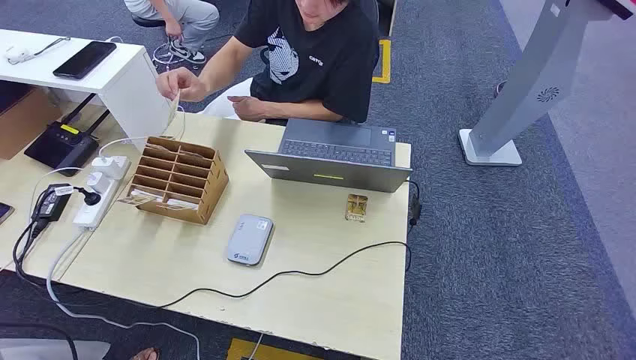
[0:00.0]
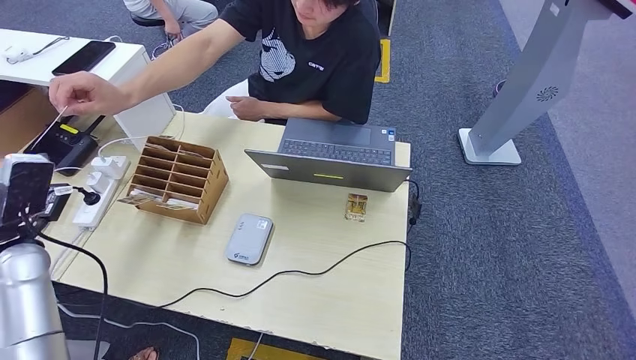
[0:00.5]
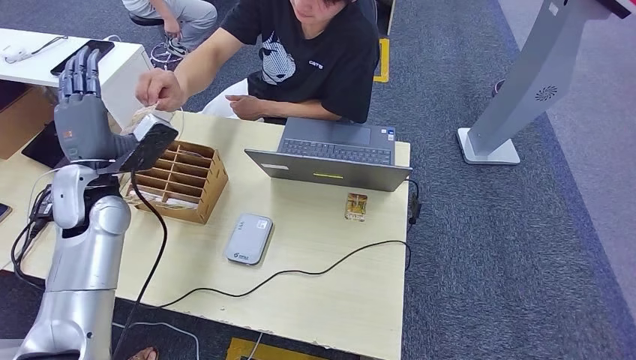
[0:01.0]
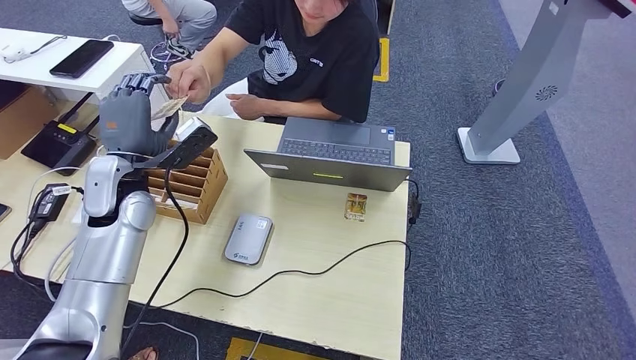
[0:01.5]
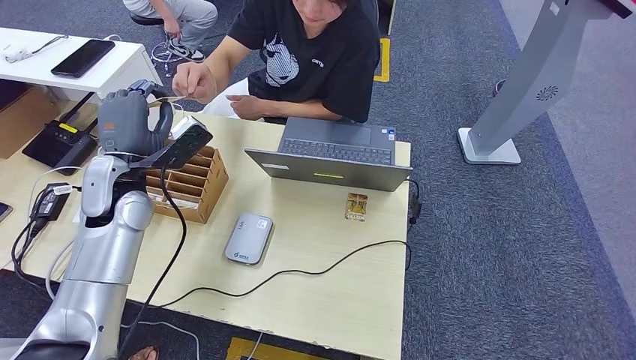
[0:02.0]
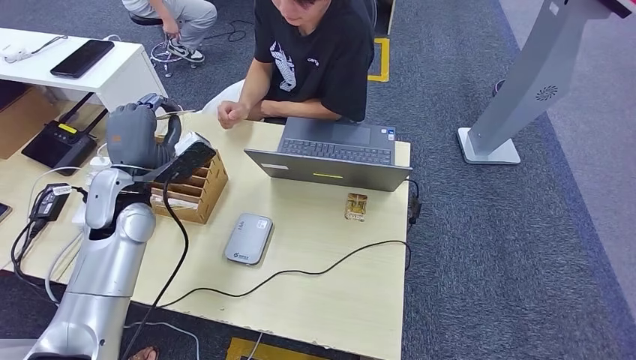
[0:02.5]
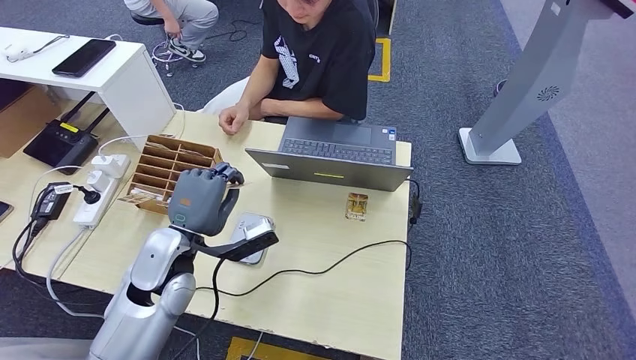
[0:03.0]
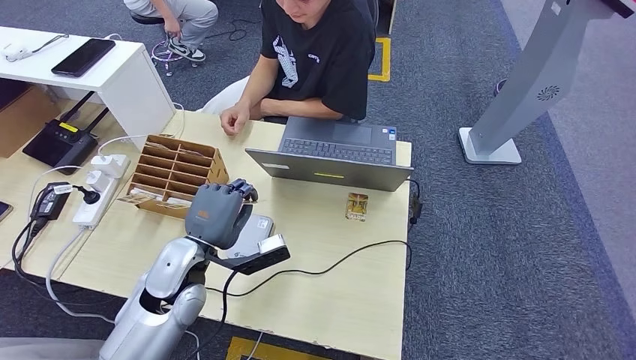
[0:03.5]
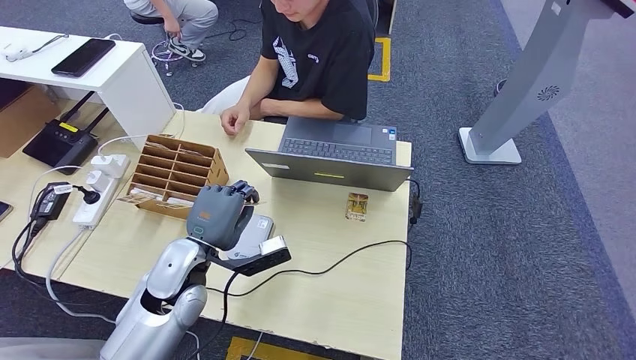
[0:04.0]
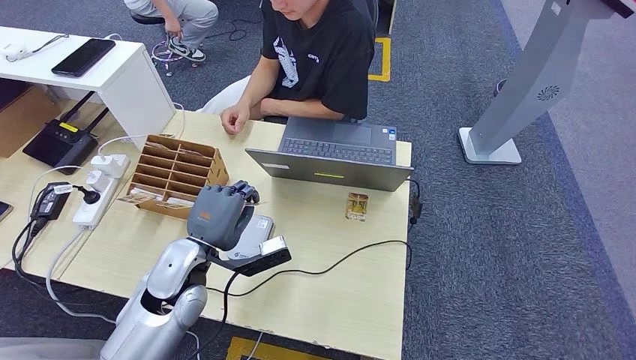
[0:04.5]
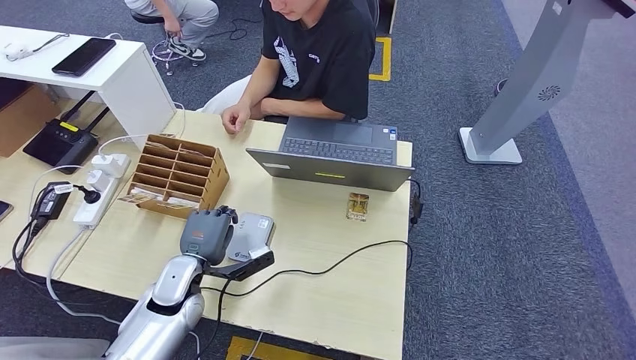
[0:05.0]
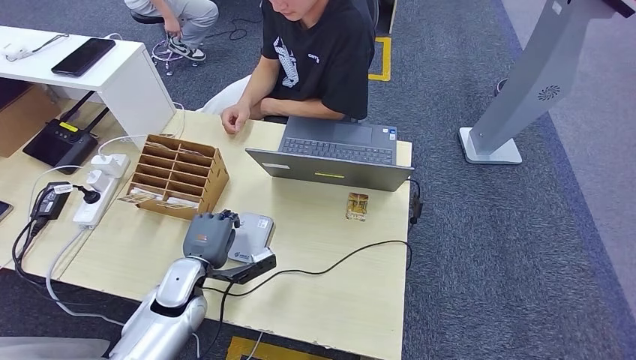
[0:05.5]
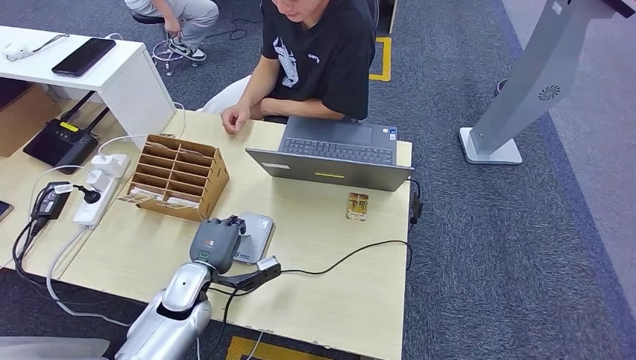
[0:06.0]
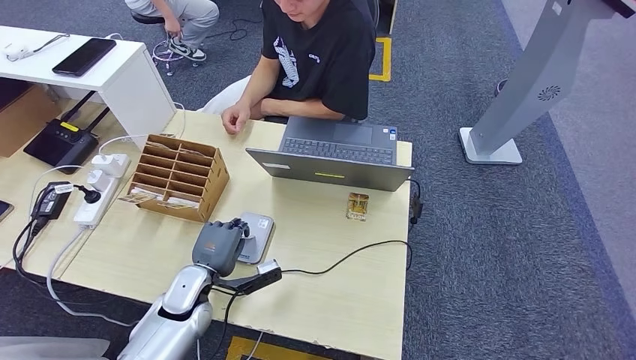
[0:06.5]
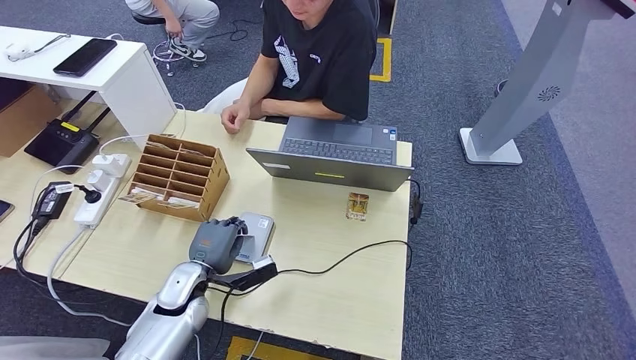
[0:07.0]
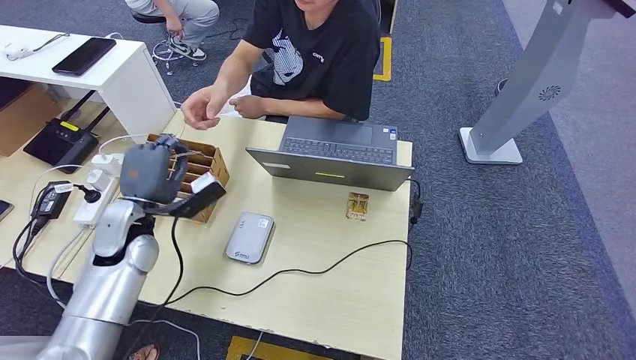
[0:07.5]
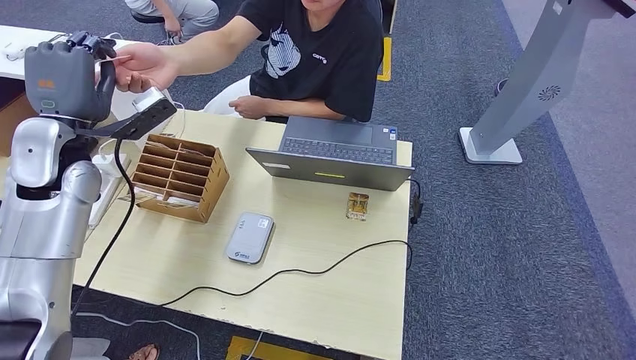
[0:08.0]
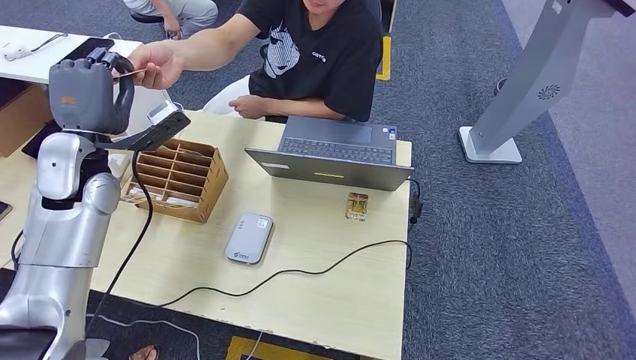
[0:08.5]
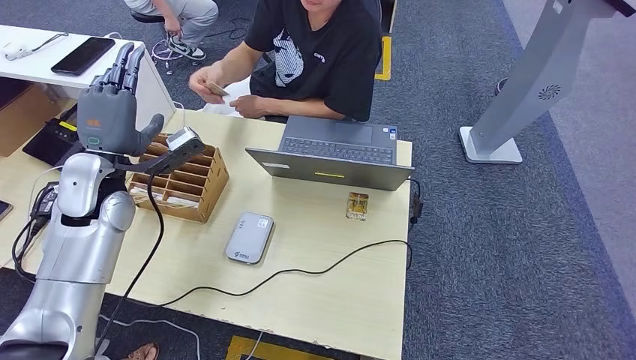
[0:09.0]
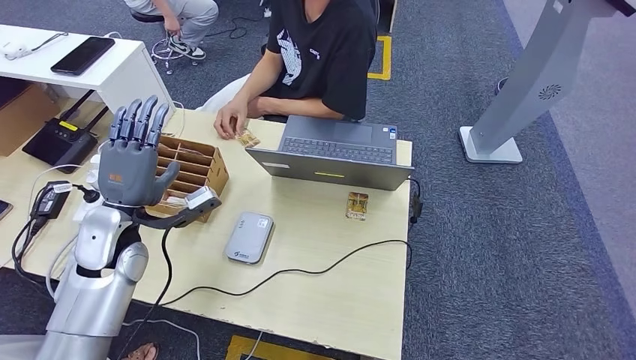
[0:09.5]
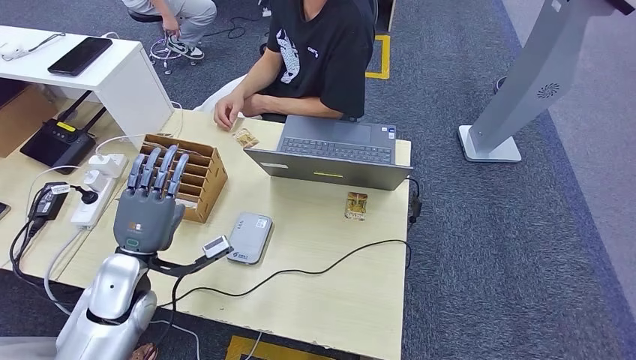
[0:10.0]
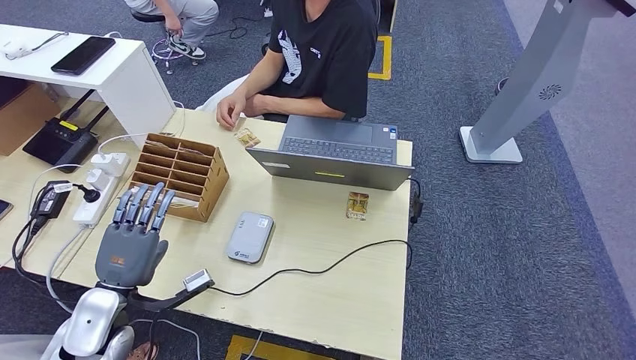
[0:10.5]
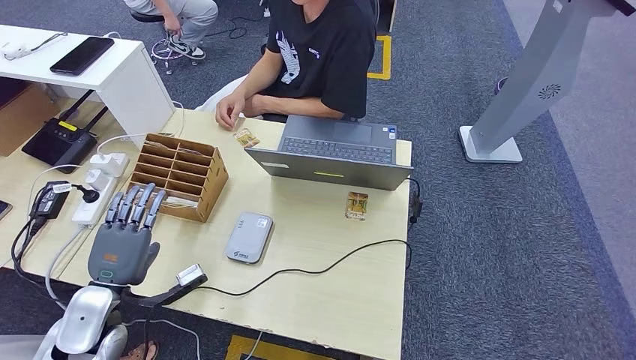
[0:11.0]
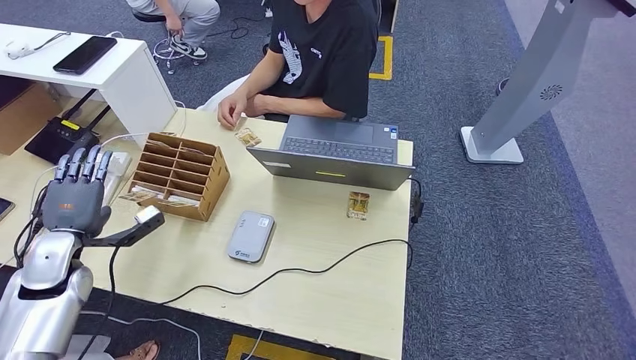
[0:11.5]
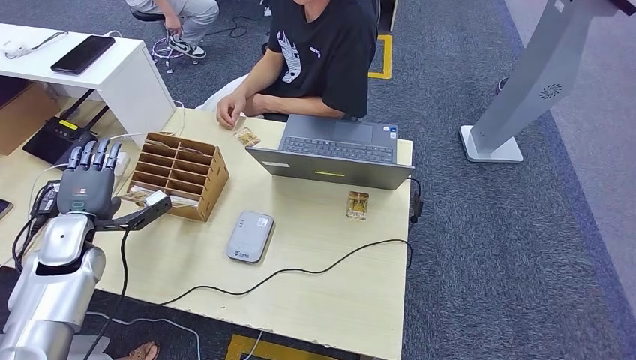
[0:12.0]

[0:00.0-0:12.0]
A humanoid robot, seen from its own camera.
Step, 0:00.0 to 0:02.5: Take the ID card from the person's hand.
Step, 0:03.5 to 0:06.0: Place the ID card on the card reader.
Step, 0:07.0 to 0:10.0: Hand the ID card to the person.
0:02.0 to 0:04.0: The left hand travels backward, downward and to the right by roughly 15 cm.
0:04.0 to 0:06.0: The left hand moves downward, roughly 10 cm.
0:10.0 to 0:12.0: The left hand moves to the left and forward, about 15 cm.

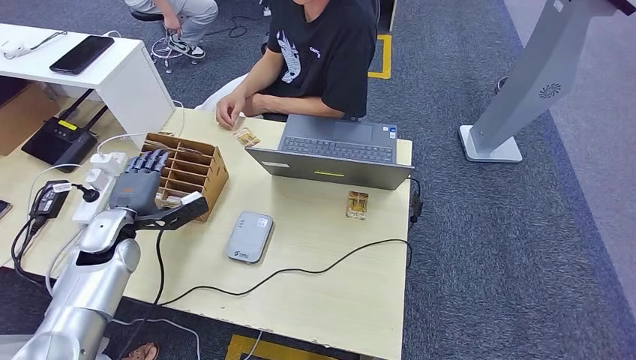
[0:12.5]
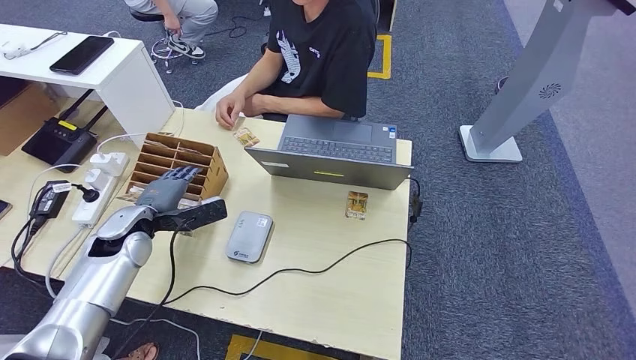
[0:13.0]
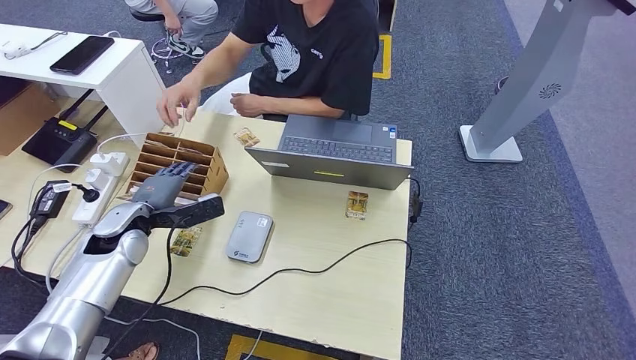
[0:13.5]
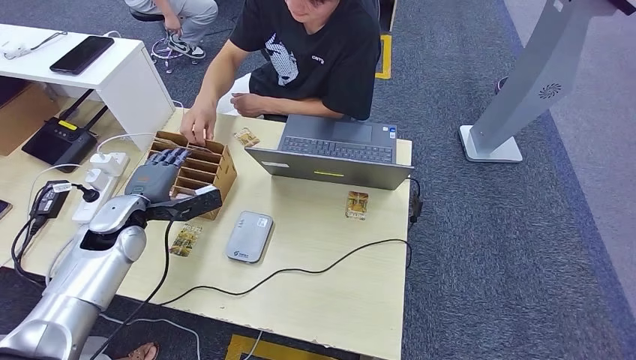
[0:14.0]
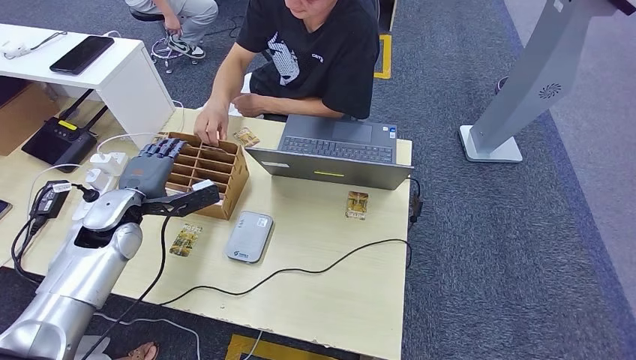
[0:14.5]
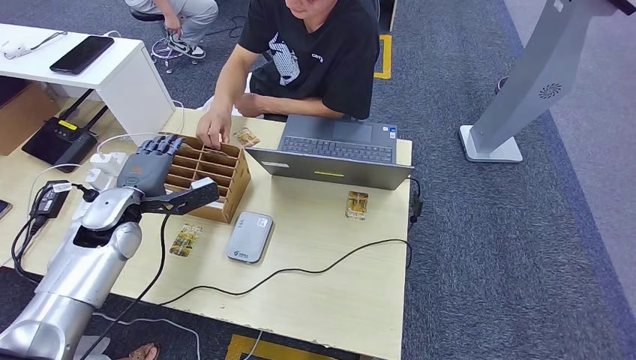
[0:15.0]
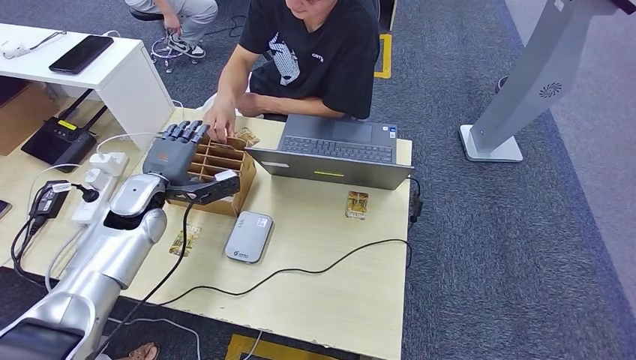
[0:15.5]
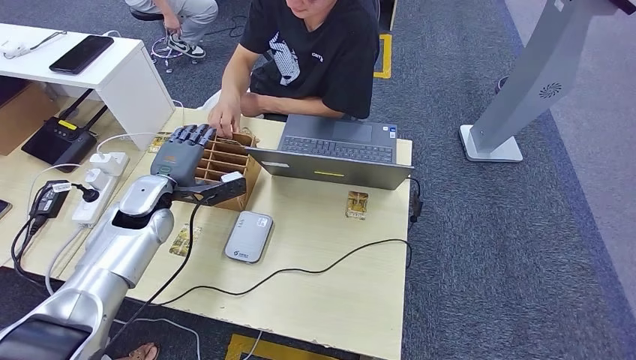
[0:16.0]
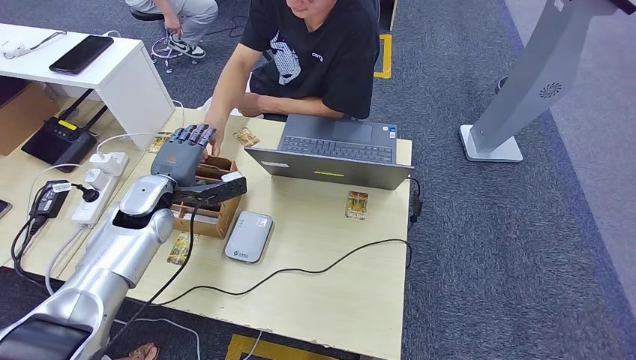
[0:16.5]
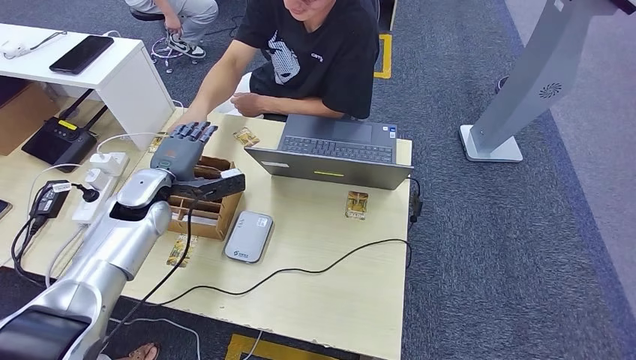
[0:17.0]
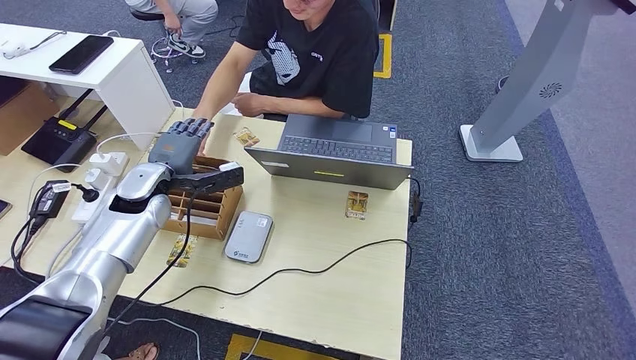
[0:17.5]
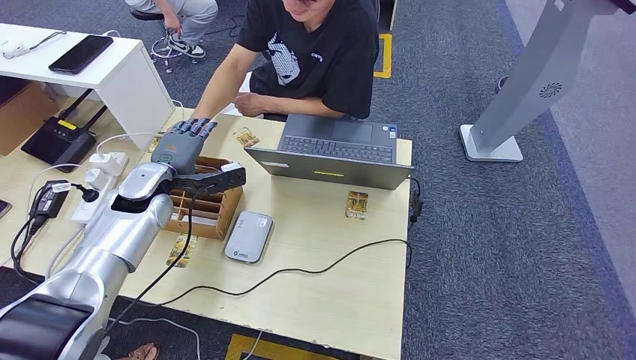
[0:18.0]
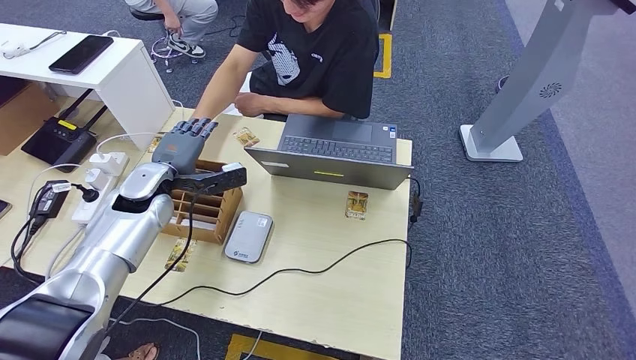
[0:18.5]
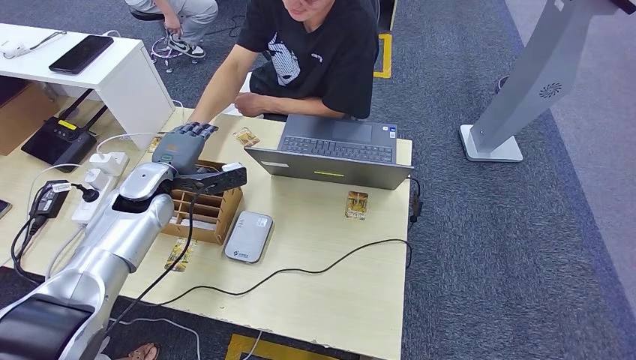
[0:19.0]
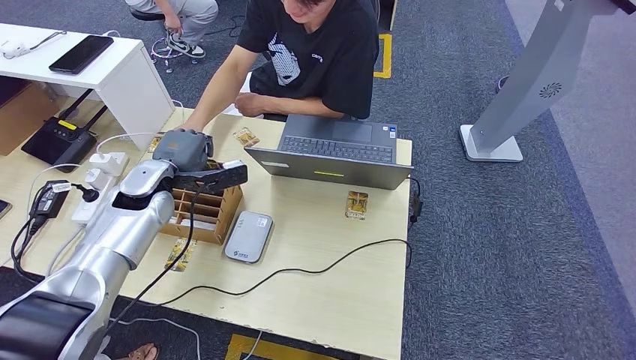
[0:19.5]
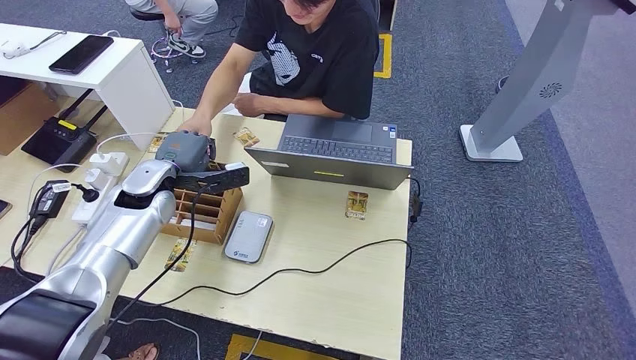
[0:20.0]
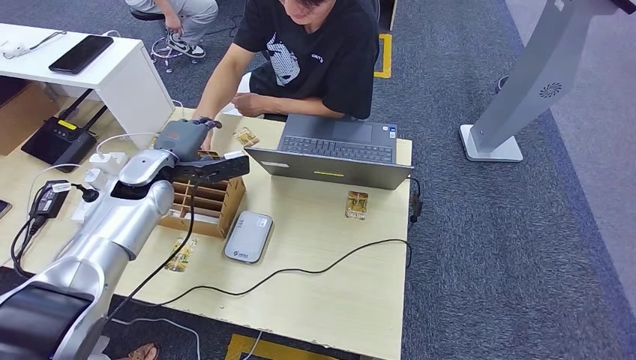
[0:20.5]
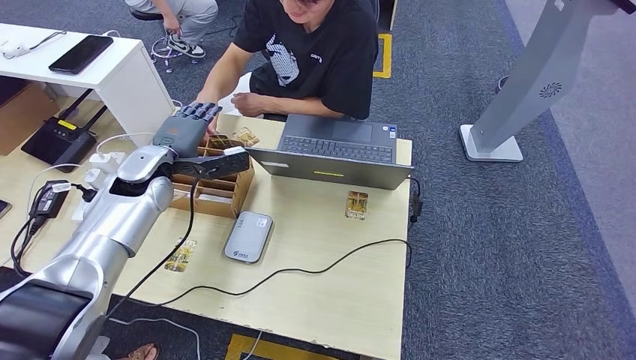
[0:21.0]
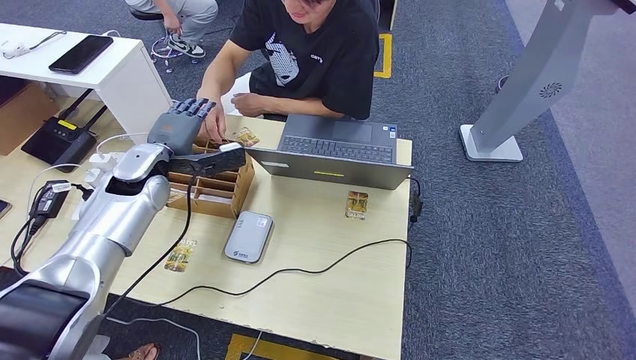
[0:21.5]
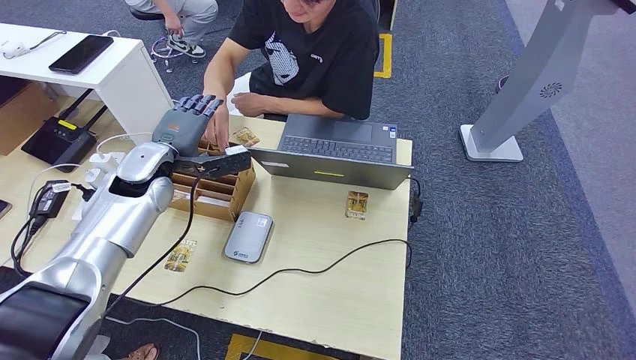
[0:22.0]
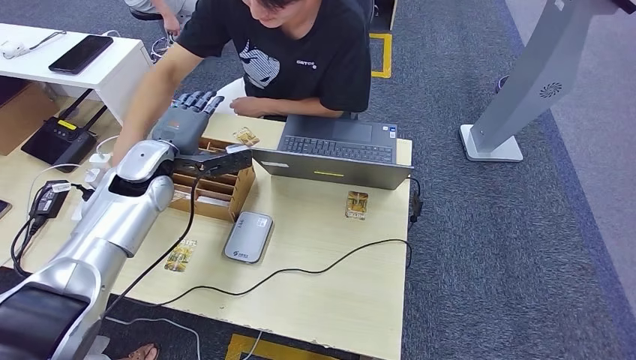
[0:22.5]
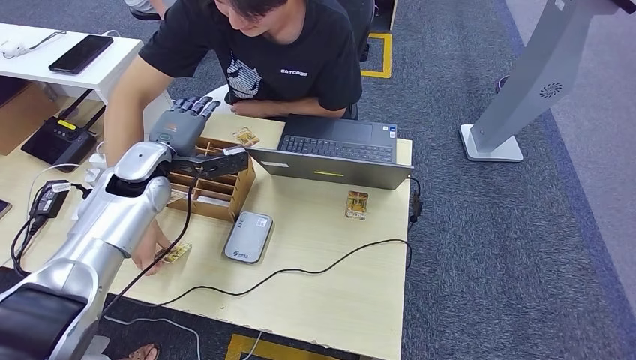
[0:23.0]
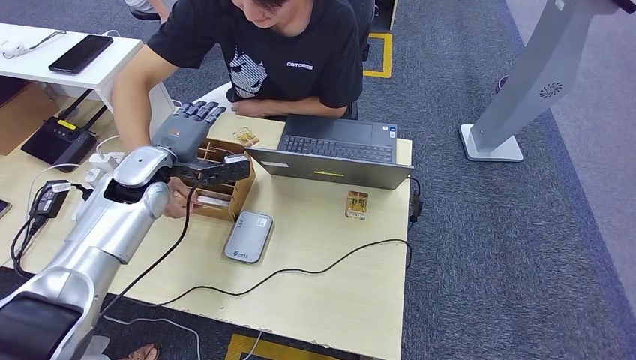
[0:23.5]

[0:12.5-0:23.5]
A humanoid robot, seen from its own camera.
0:12.5 to 0:14.5: The left hand changes place by about 5 cm.
0:14.5 to 0:16.0: The left hand ends up some 5 cm from where it was.
0:16.0 to 0:18.0: The hands make only small movements.
0:18.0 to 0:20.0: Neither hand changes place.
0:20.0 to 0:23.5: The hands move only a little.
